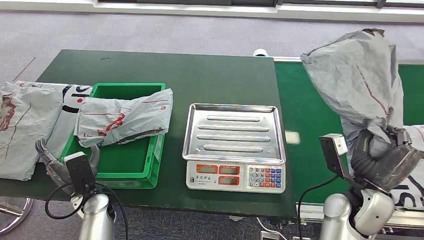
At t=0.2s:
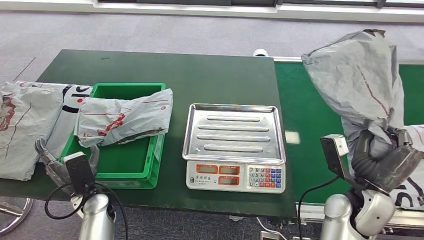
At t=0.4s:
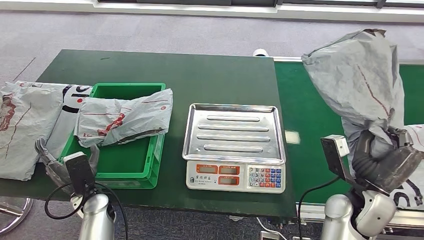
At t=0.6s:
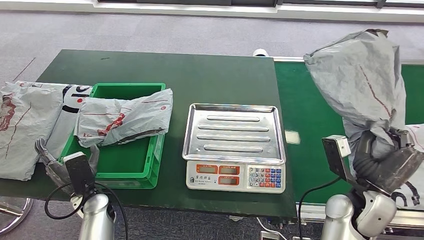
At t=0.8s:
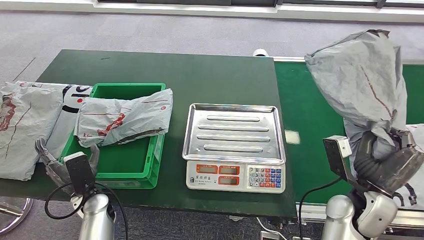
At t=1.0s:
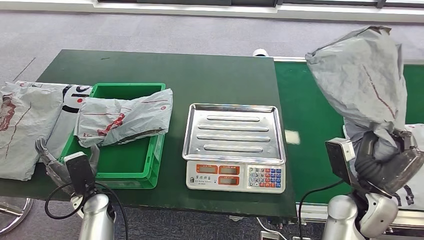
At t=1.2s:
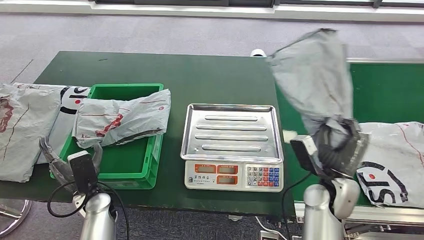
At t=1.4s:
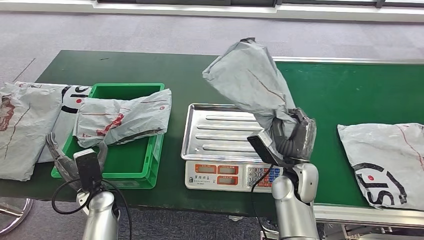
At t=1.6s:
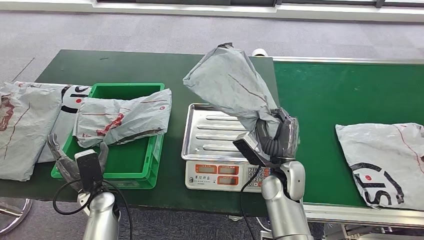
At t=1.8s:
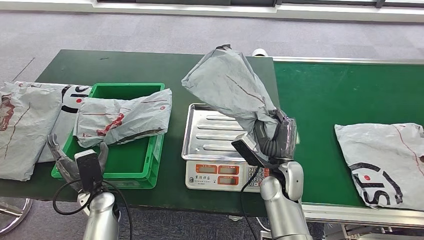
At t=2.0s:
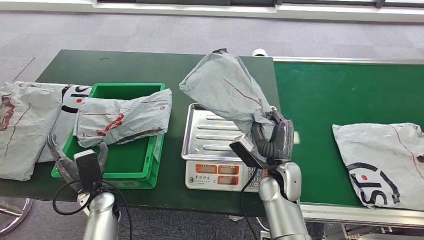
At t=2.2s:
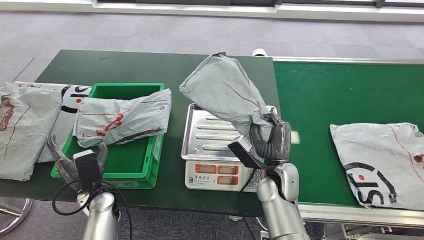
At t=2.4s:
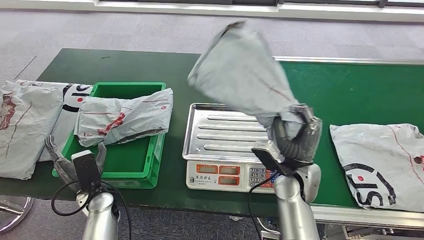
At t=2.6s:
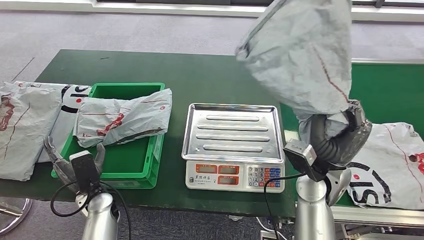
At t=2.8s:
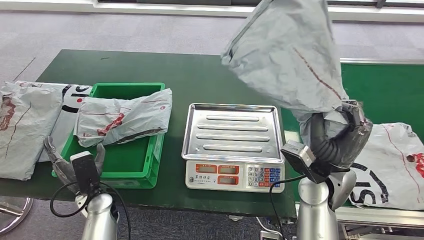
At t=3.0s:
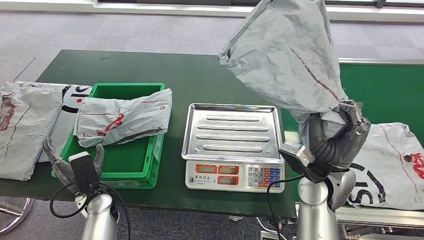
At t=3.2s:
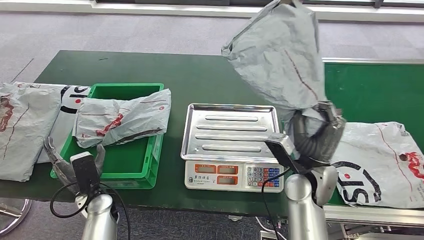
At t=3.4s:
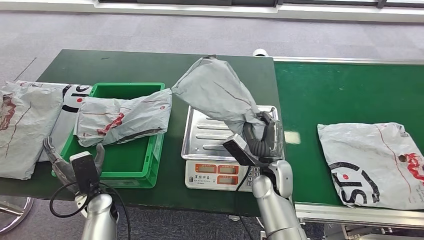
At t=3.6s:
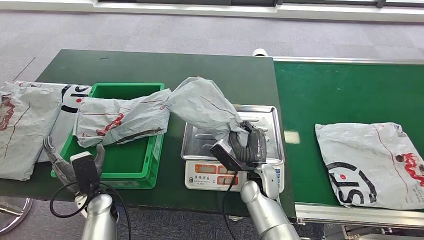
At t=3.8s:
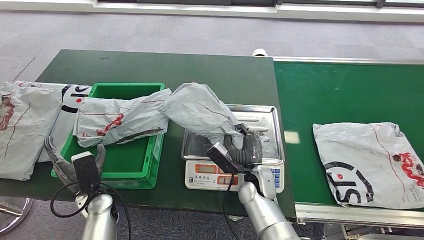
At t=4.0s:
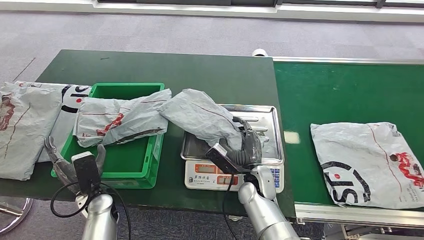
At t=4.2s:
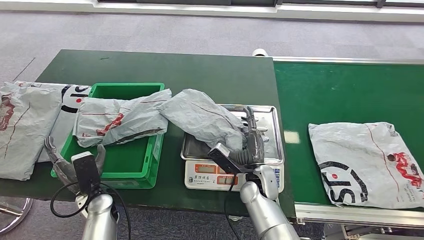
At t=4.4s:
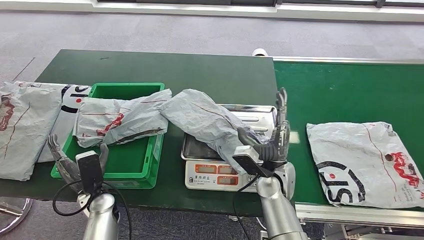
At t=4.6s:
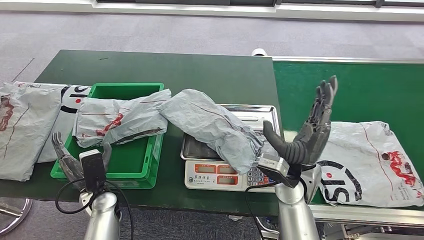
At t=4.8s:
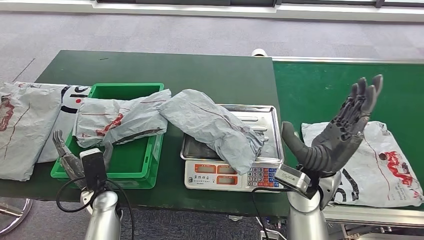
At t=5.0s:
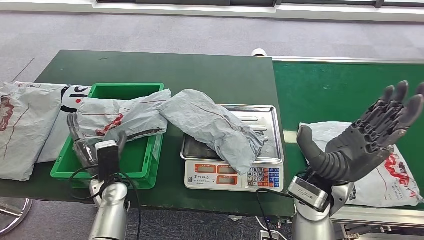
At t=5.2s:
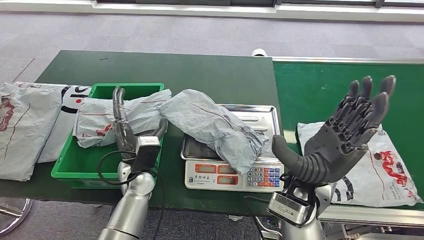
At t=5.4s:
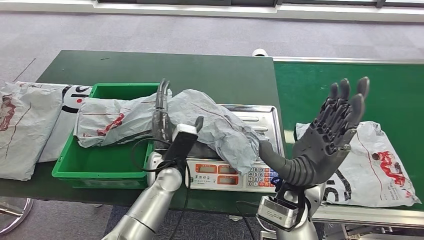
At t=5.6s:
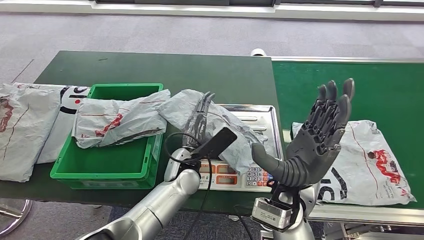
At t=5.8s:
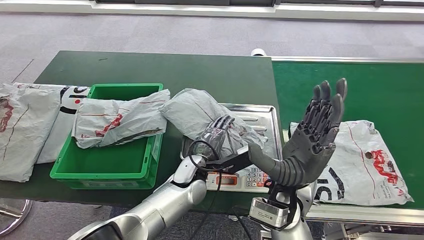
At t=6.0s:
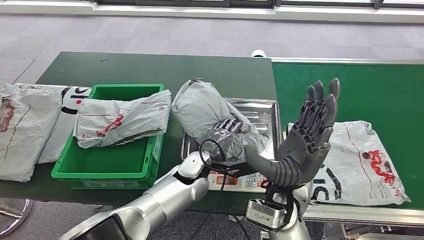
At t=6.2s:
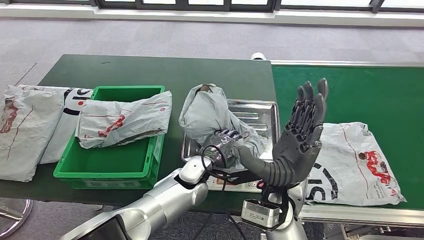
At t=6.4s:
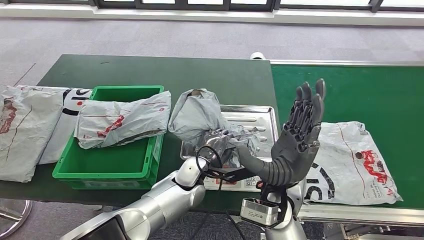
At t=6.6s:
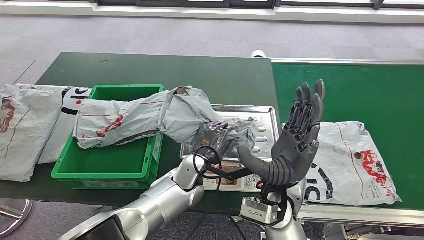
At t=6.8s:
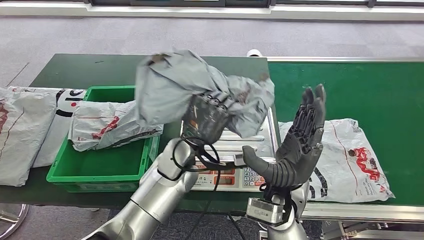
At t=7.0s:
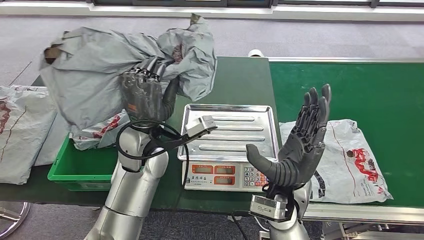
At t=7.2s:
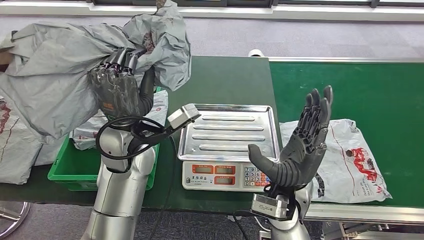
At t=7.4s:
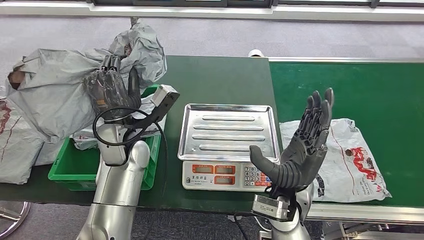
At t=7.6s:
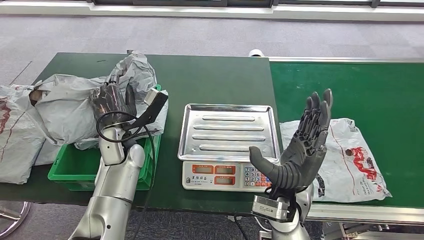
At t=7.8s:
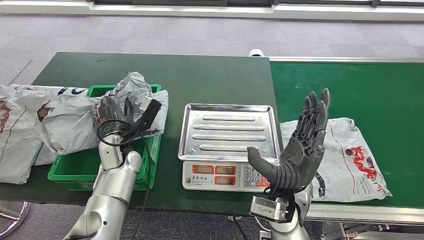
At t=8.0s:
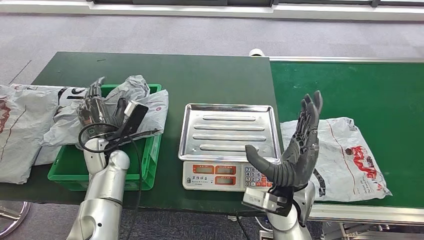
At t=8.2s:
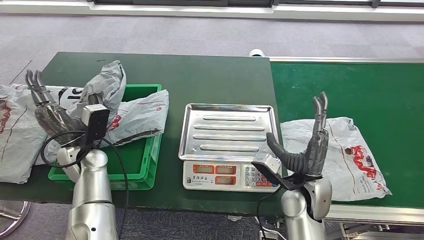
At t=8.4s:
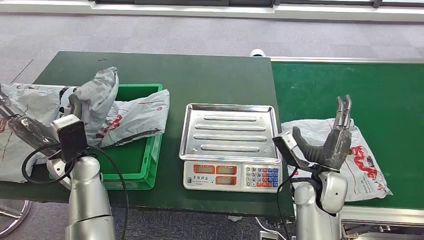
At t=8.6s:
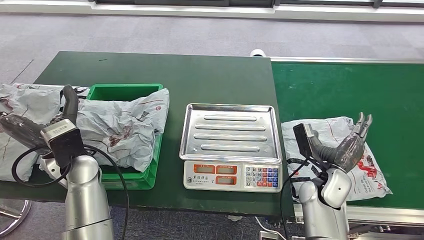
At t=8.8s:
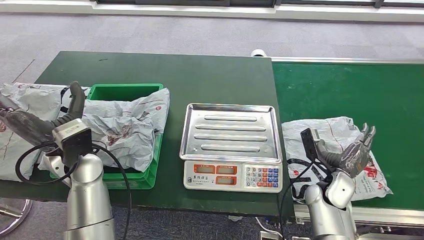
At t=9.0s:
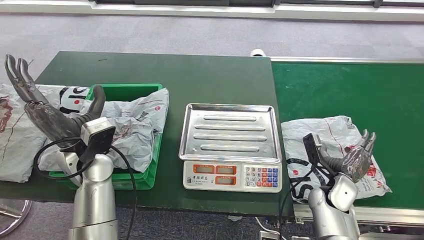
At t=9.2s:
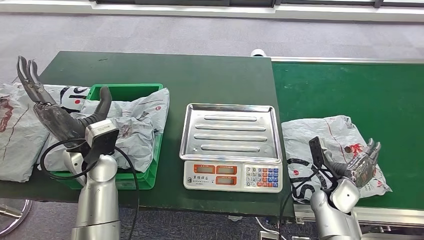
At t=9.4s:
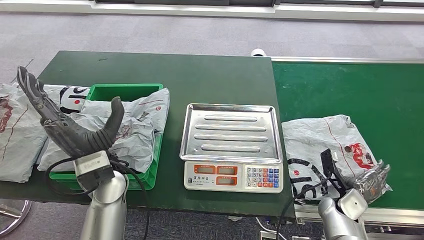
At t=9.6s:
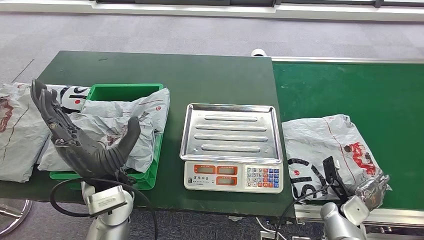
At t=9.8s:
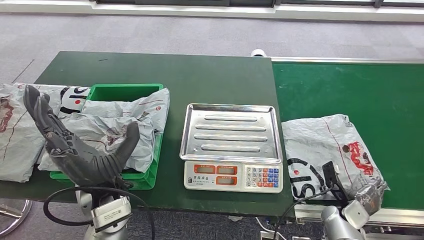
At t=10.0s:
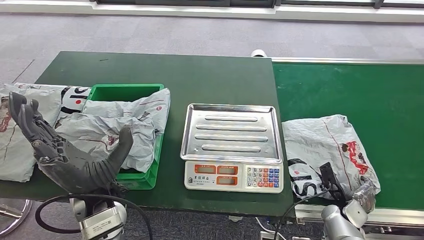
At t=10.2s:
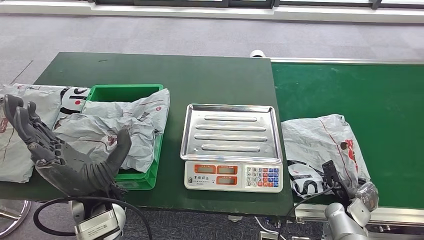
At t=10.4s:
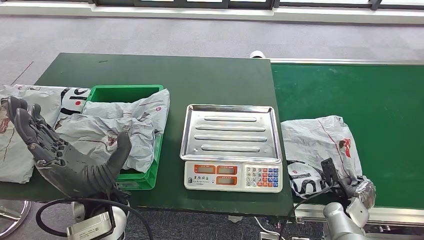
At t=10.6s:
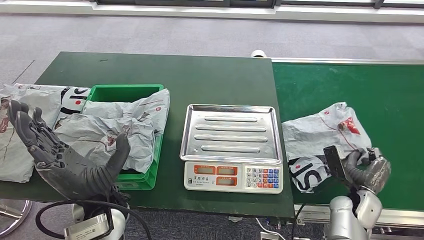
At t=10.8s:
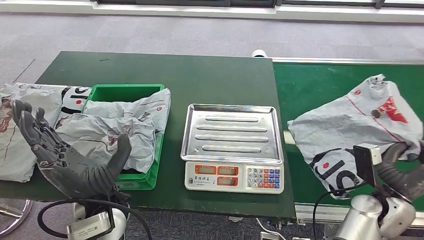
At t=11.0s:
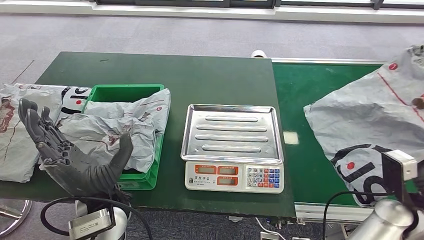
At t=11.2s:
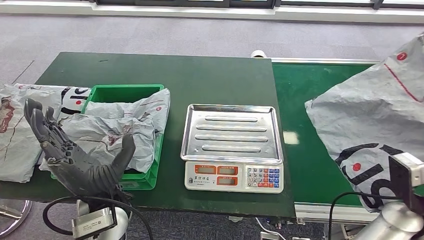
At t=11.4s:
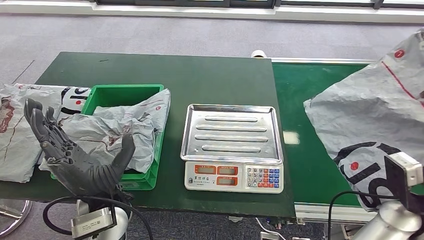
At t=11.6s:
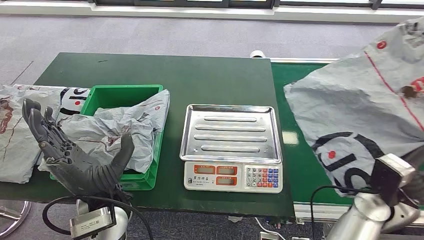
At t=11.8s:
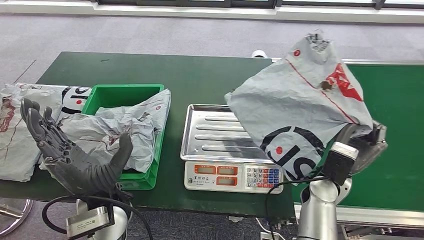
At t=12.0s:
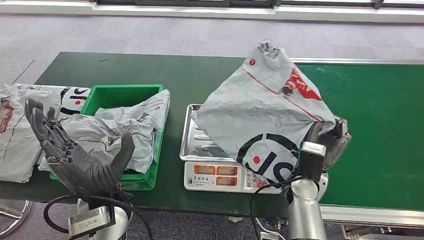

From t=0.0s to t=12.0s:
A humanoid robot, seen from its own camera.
Step, from t=0.0s to t=4.2s: Place the parcel onto the inbound machine.
Step, from t=4.6s to t=6.8s: Pick up the parcel from the inbound machine.
Step, from t=7.2s to t=9.0s: Place the parcel into the delivery box.
Step, from t=9.2s to t=11.0s: Pick up the parcel from the conveyor belt.

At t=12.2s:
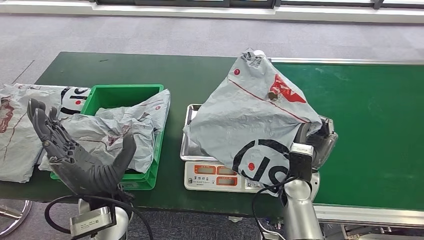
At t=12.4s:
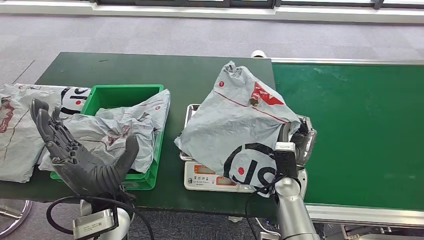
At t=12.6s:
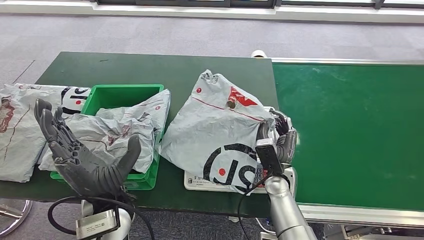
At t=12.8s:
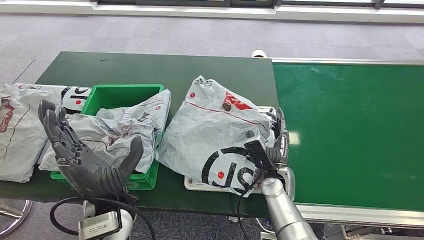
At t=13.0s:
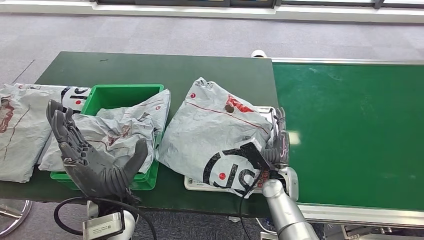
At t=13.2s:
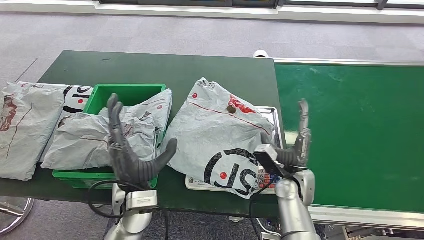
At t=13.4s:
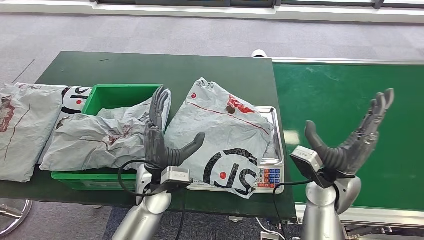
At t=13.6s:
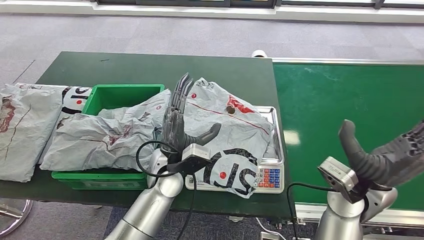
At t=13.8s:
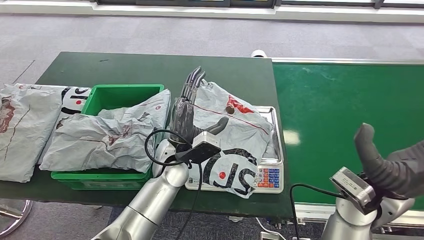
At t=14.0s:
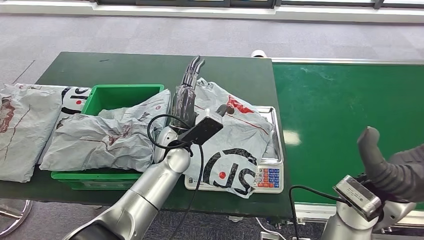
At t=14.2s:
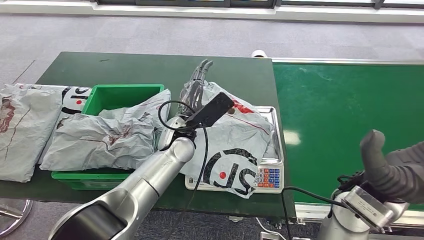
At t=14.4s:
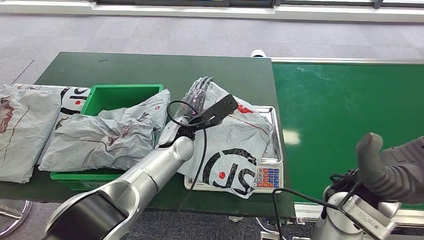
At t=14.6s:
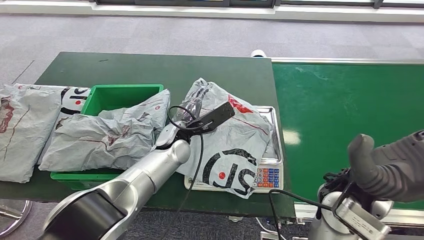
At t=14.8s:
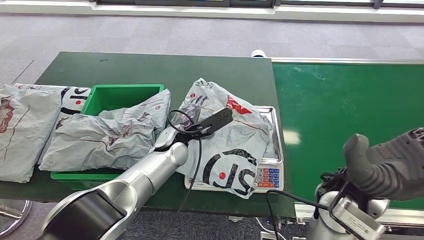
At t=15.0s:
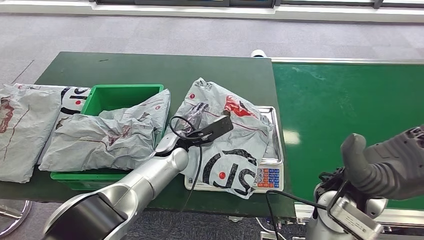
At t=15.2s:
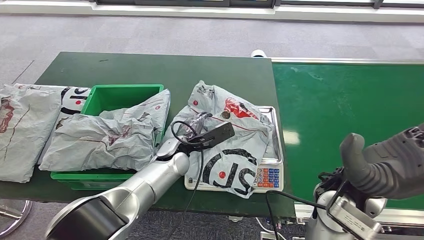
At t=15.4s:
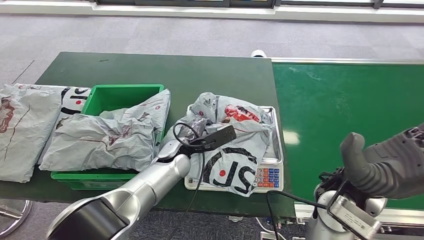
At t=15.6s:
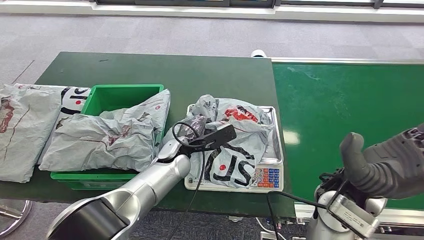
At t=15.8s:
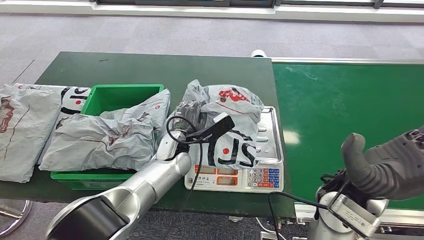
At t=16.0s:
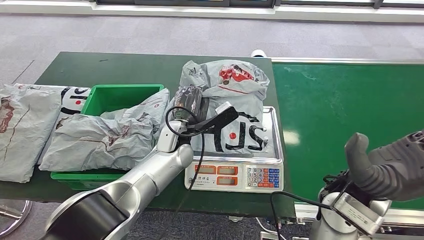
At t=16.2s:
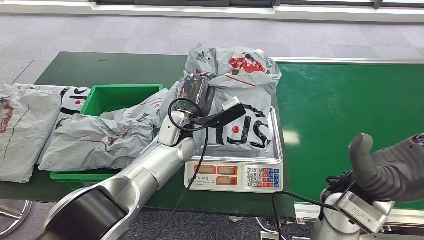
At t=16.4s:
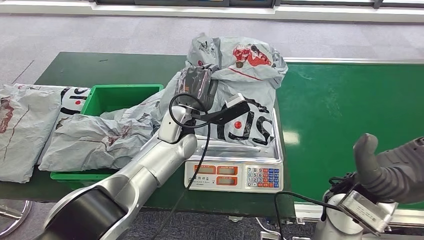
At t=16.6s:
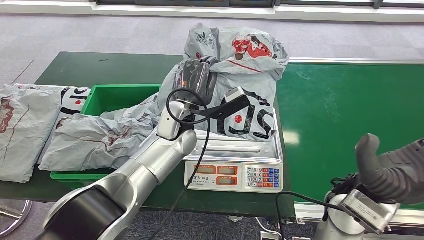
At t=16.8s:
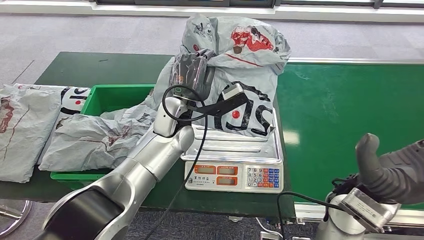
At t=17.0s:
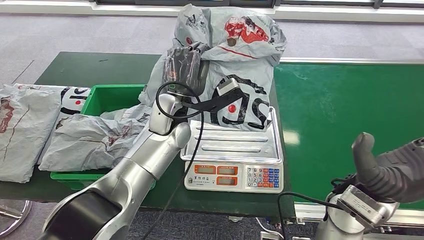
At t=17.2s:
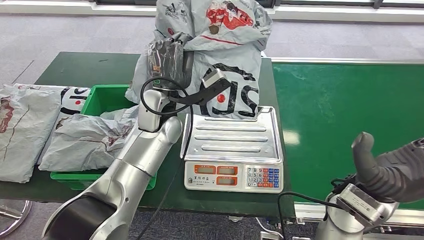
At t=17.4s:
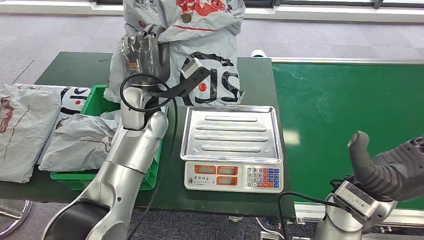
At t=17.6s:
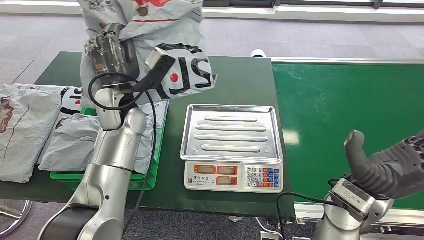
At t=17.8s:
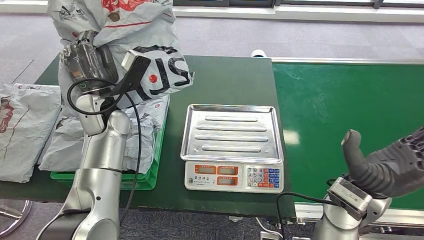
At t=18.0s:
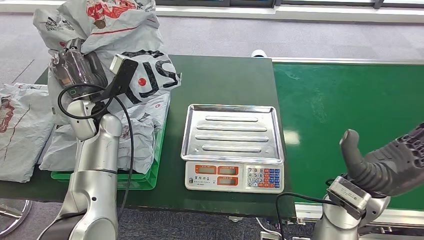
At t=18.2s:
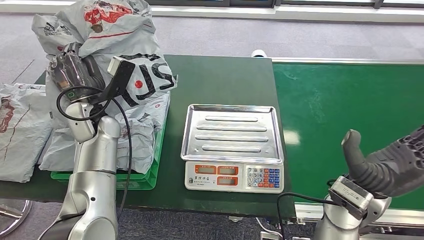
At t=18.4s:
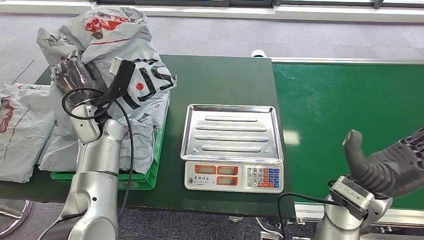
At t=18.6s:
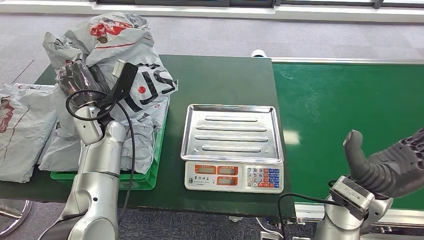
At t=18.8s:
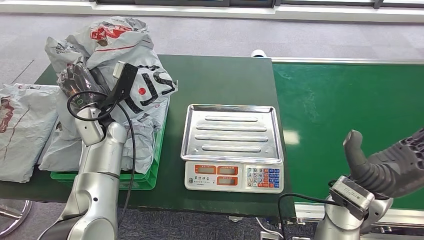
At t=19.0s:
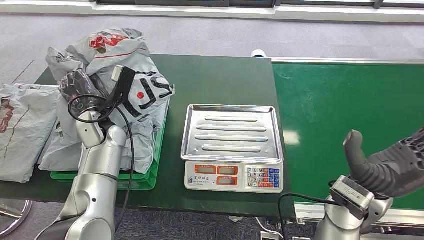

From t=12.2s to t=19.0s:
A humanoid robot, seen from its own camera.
Step, from t=12.2s to t=14.0s: Place the parcel onto the inbound machine.
Step, from t=14.4s to t=17.4s: Pick up the parcel from the inbound machine.
From t=13.6s to t=15.0s: The left hand shifts about 5 cm forward. Meanwhile the right hand heads to the left and upward, covering approximately 10 cm.
From t=15.0s to t=16.2s: The left hand shifts about 5 cm upward.
